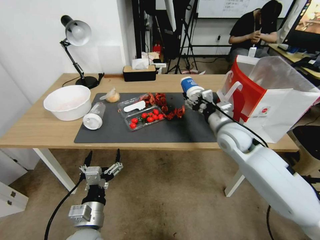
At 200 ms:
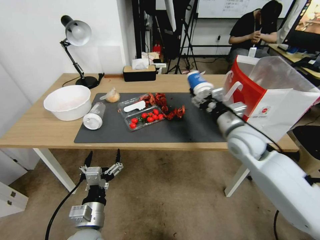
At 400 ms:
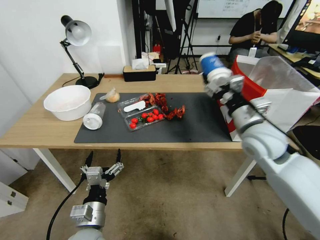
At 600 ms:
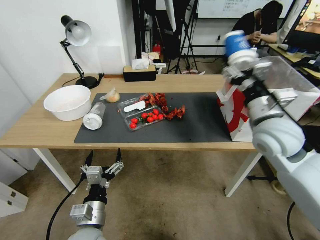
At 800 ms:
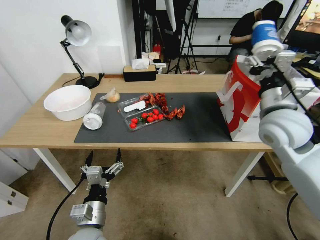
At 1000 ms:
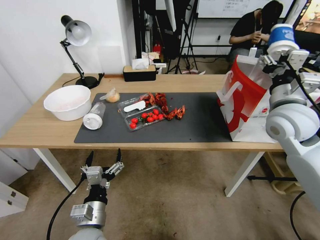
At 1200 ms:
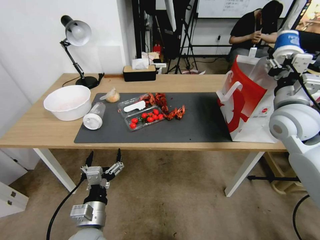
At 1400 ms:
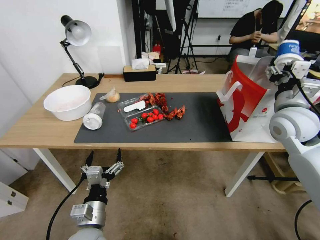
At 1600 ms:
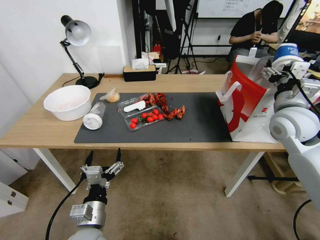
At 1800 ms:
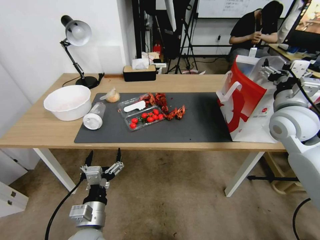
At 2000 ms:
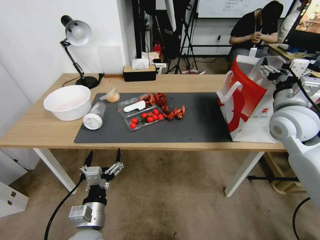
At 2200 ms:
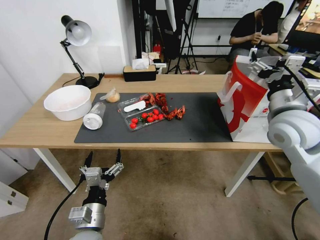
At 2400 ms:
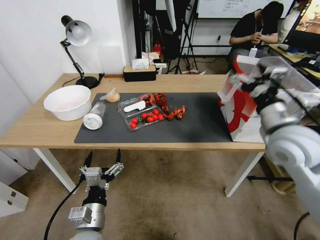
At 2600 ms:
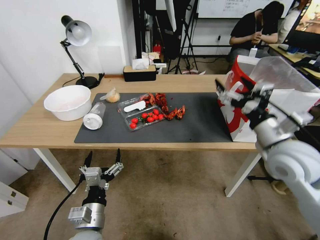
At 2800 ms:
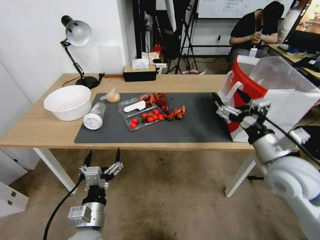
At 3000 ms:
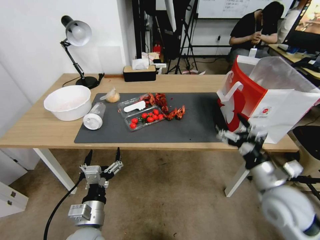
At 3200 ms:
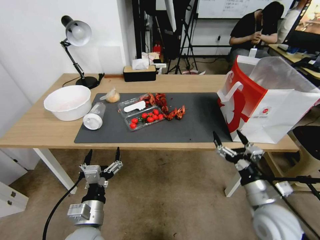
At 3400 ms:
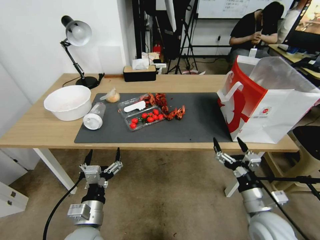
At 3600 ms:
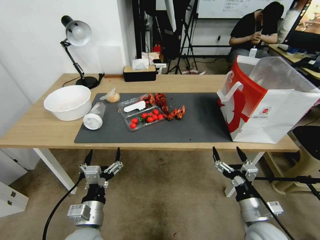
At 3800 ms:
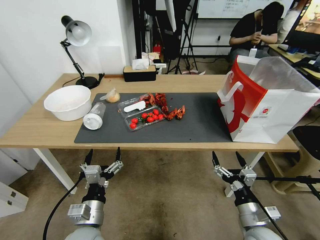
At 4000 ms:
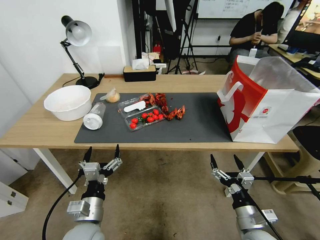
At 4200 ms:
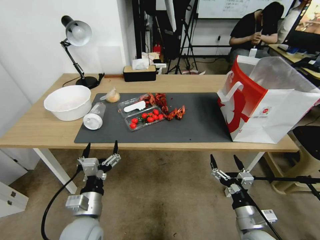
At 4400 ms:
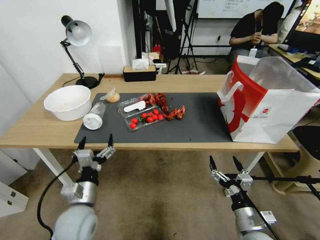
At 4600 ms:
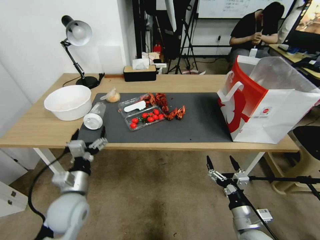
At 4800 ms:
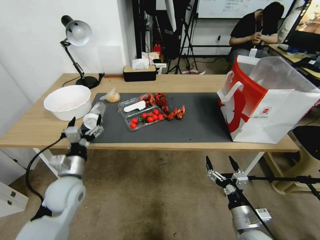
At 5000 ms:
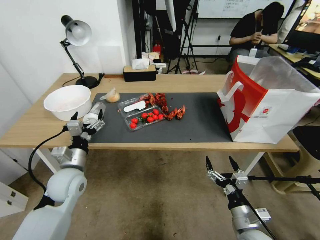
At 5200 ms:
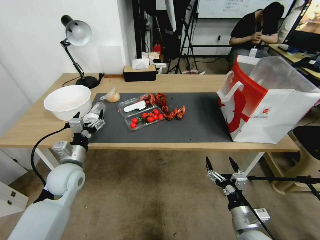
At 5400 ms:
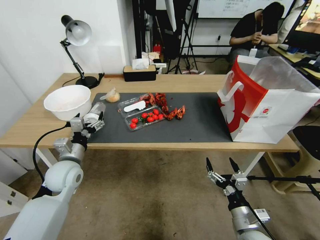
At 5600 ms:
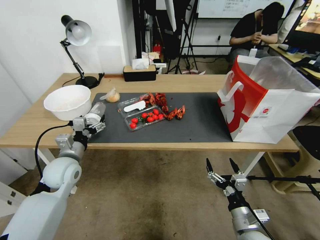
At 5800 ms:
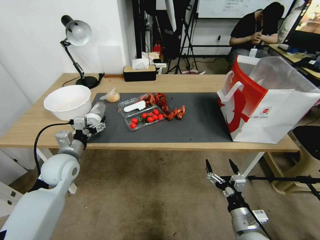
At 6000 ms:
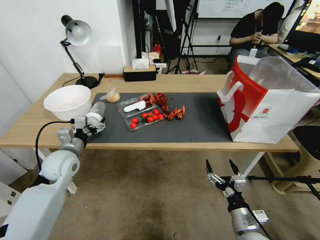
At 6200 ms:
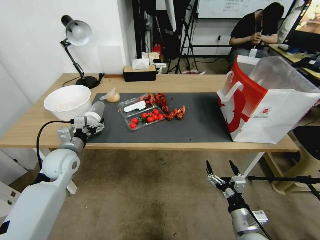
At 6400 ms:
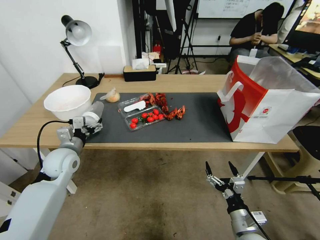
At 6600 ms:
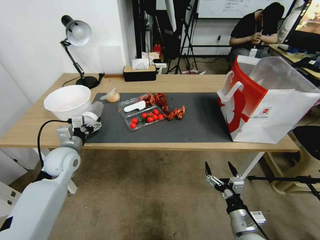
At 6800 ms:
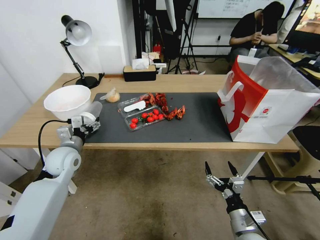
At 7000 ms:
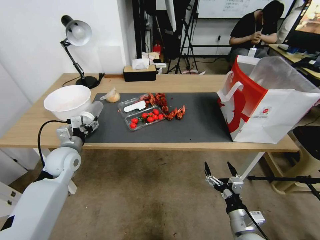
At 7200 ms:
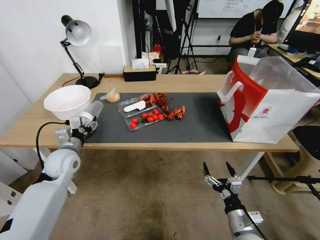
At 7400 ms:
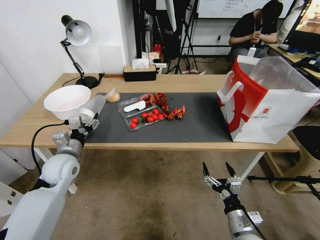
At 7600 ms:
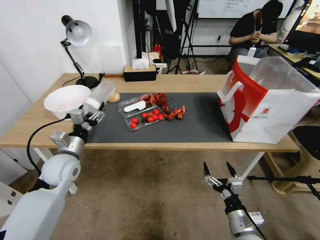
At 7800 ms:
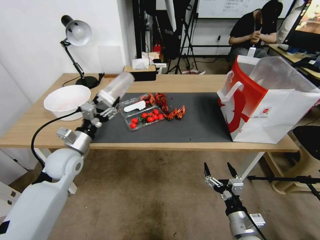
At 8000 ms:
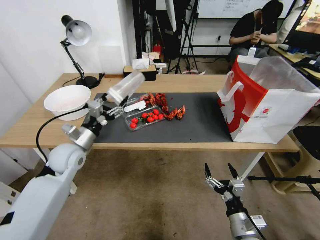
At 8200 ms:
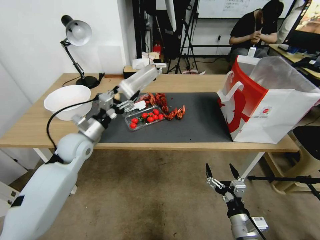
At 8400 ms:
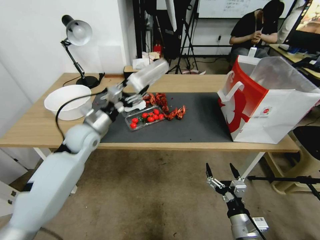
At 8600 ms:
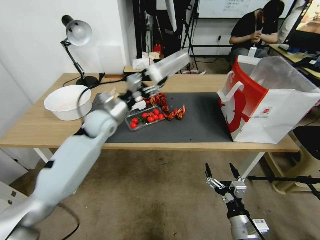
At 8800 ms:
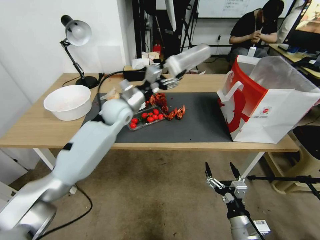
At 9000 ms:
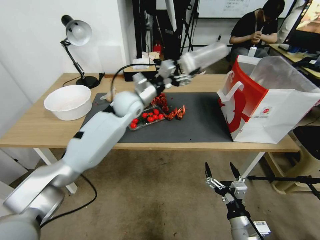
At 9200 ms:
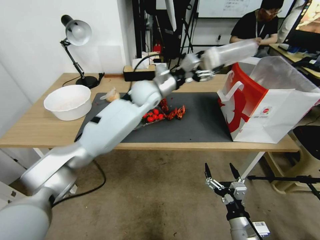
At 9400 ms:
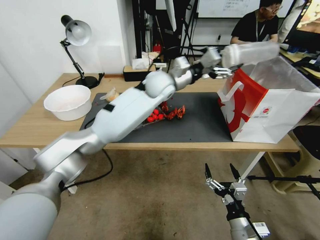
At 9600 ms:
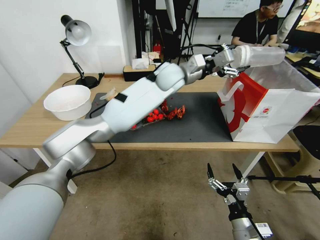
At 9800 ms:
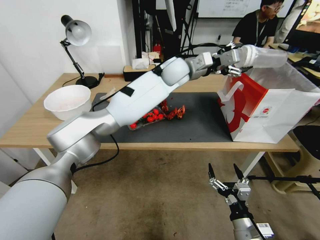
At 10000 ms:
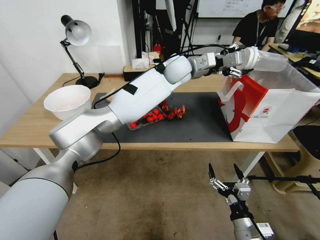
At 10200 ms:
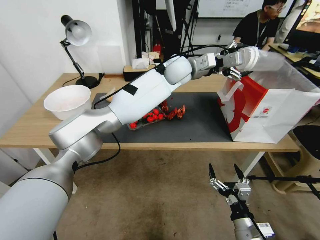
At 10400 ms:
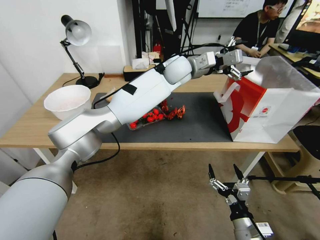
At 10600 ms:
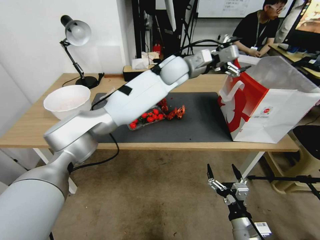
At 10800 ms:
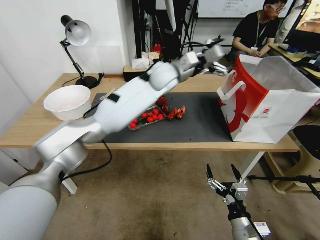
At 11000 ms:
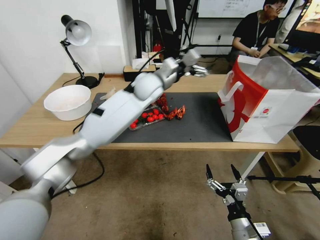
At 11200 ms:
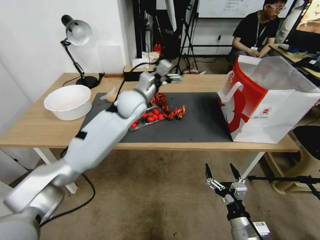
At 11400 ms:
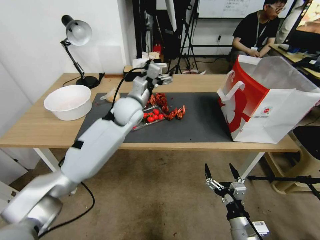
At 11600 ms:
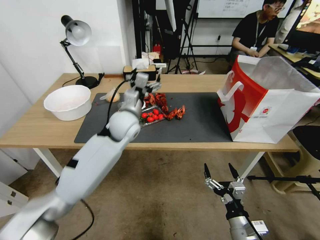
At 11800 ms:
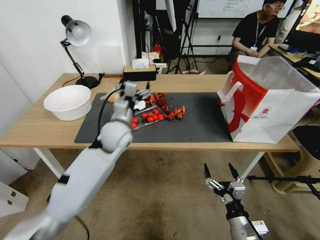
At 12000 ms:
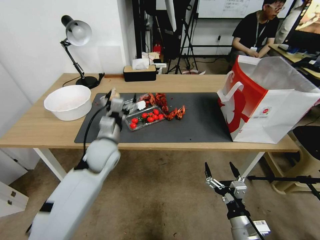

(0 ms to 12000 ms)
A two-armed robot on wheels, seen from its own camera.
0 ms - 1600 ms: The right gripper goes about 15 cm to the right and upward.
1600 ms - 3000 ms: The right gripper travels backward and downward by approximately 20 cm.
3000 ms - 4400 ms: The right gripper shifts about 15 cm downward and backward. Meanwhile the left gripper moves about 5 cm.
4400 ms - 6000 ms: The left gripper shifts some 15 cm forward and to the left.
6000 ms - 7600 ms: There are only small adjustments of the grippers.
7600 ms - 9000 ms: The left gripper is displaced forward, to the right and upward by roughly 20 cm.
9000 ms - 10400 ms: The left gripper moves to the right, upward and forward, some 30 cm.
10400 ms - 12000 ms: The left gripper is displaced to the left, downward and backward by some 20 cm.

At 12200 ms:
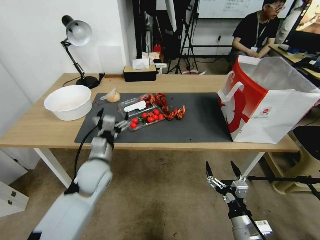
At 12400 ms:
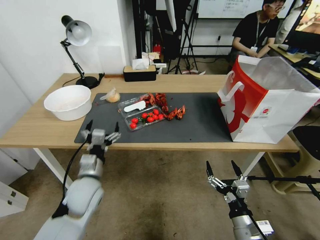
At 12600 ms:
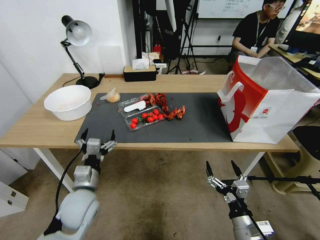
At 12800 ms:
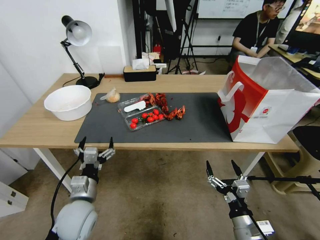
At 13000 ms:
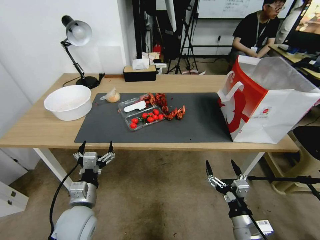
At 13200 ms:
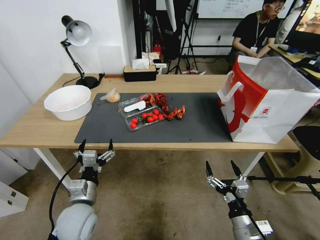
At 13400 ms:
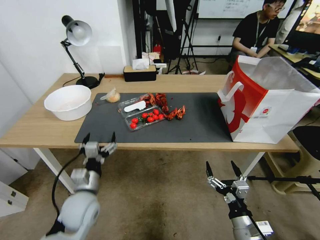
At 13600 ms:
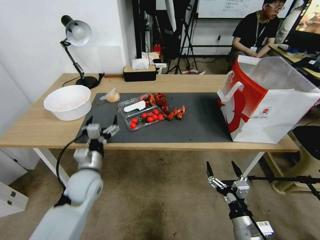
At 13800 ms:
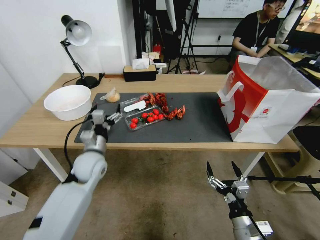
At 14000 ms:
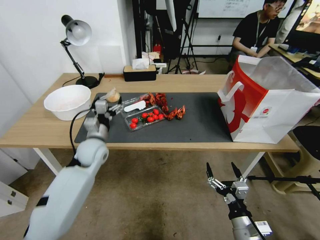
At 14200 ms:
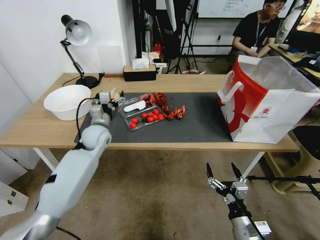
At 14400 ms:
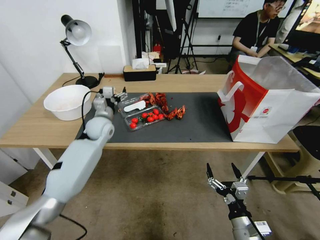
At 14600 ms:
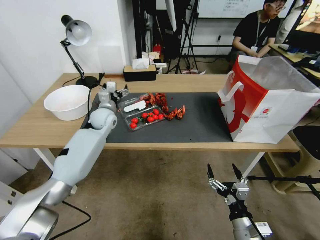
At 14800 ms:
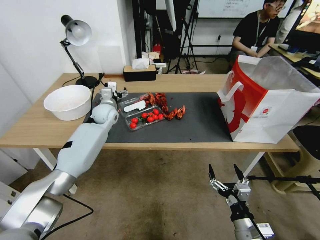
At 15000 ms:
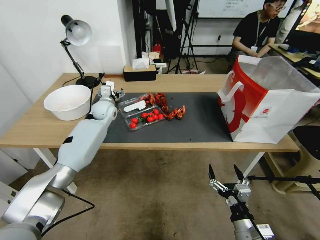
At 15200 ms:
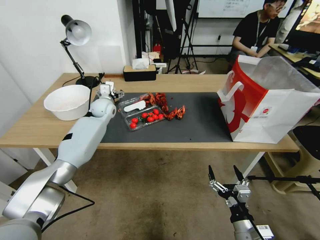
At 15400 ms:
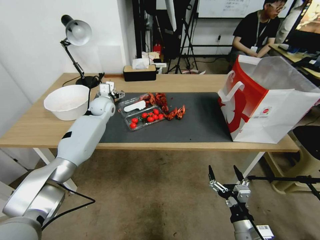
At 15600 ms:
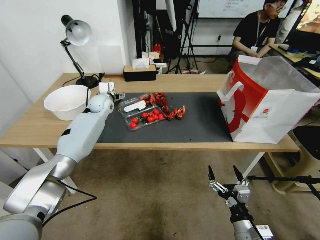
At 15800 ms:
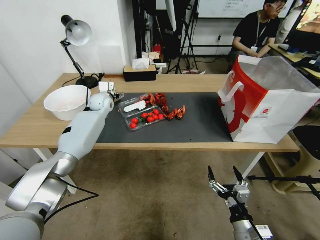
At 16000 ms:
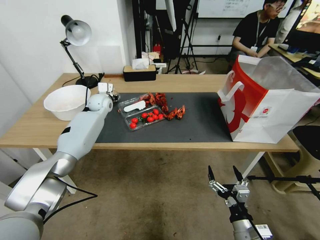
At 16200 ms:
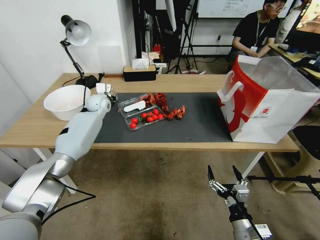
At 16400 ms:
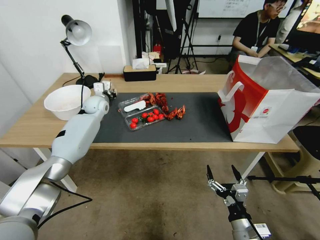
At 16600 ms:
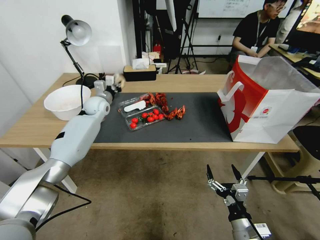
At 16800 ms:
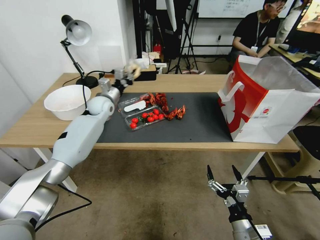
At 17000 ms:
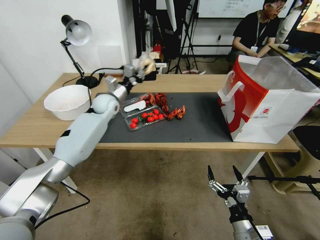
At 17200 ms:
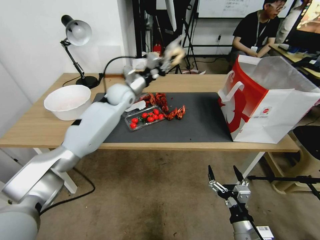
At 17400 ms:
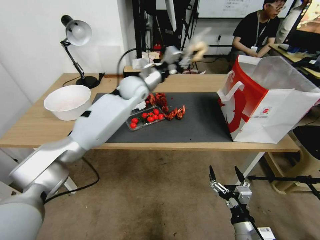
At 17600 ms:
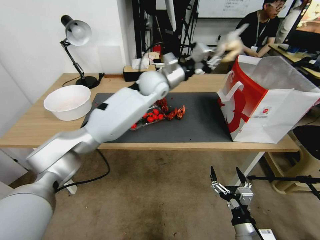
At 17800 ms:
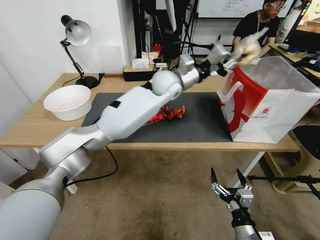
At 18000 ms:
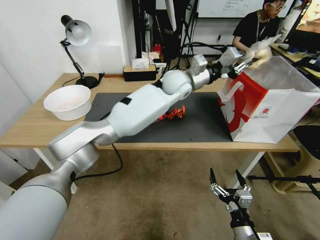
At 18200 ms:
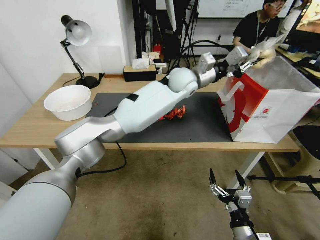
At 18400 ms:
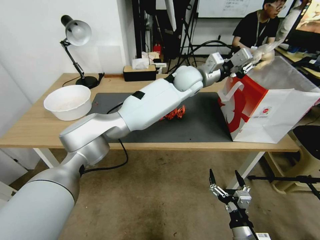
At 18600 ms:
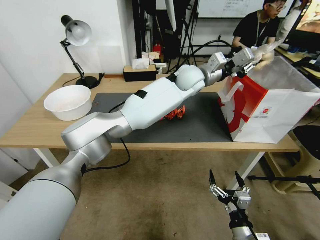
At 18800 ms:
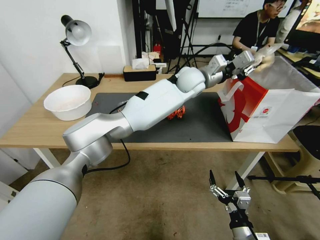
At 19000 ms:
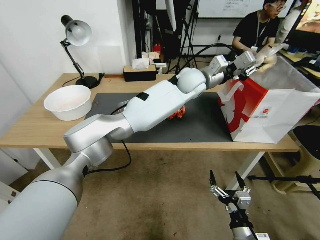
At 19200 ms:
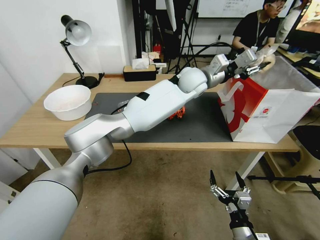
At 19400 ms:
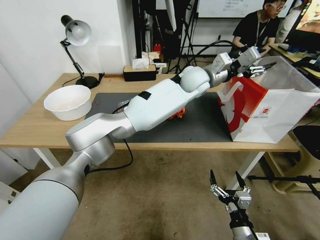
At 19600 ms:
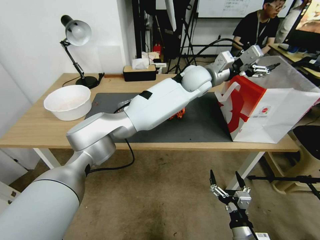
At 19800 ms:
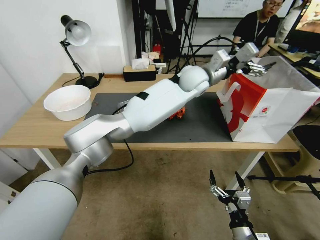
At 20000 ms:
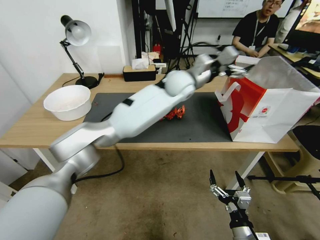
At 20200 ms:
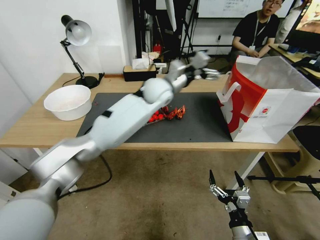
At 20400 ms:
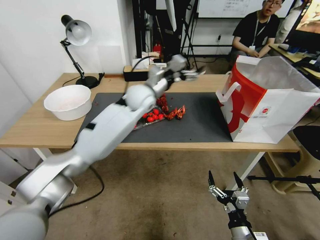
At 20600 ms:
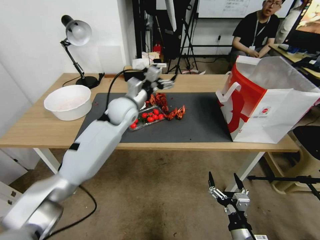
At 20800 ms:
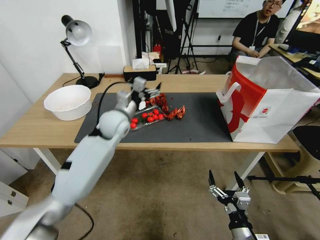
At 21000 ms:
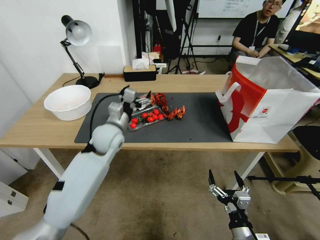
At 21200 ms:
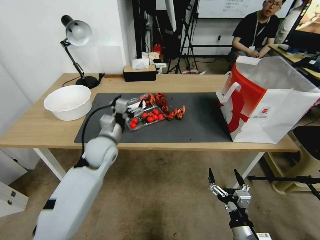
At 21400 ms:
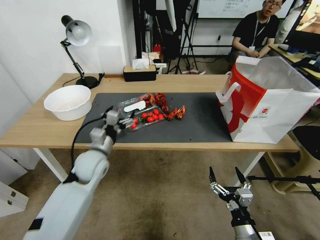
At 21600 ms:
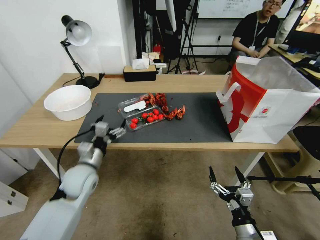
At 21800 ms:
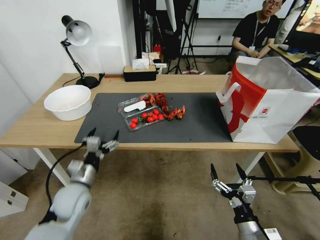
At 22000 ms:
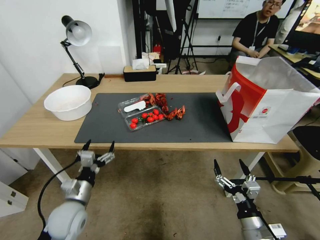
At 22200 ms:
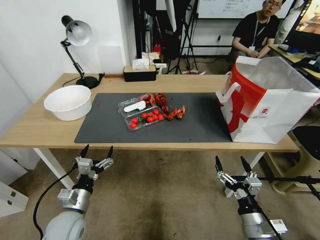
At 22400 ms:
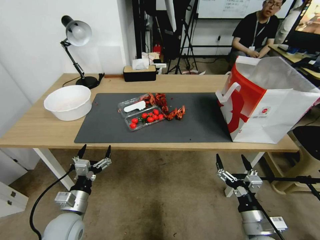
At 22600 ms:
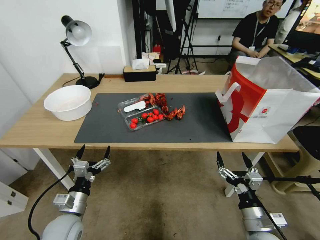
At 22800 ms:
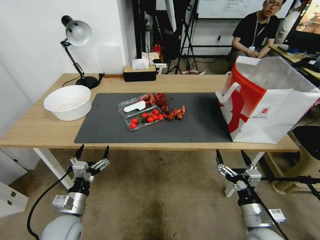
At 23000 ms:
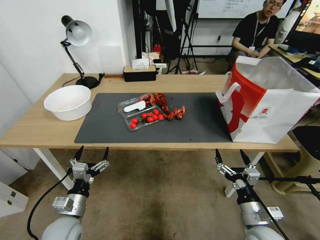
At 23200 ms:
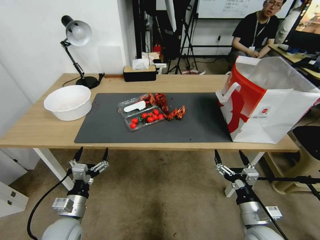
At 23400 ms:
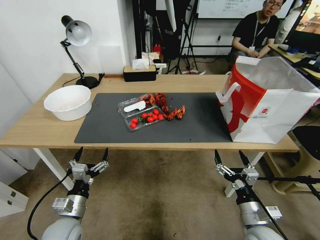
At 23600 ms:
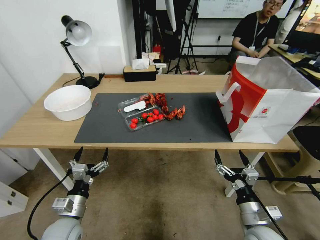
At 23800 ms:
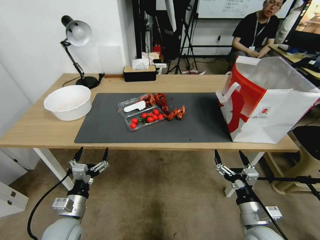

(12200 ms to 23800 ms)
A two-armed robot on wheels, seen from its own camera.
12200 ms - 13600 ms: The left gripper is displaced backward, downward and to the left by roughly 30 cm.
13600 ms - 15000 ms: The left gripper shifts some 35 cm forward.
15000 ms - 16600 ms: The left gripper closes up.
16600 ms - 18000 ms: The left gripper travels to the right and upward by roughly 35 cm.
18000 ms - 19400 ms: The left gripper opens.
19400 ms - 21000 ms: The left gripper heads to the left, downward and backward, covering approximately 35 cm, and opens its fingers.
21000 ms - 22400 ms: The left gripper shifts roughly 30 cm backward, downward and to the left; the right gripper changes place by roughly 5 cm.
22400 ms - 23800 ms: The grippers make only small movements.
